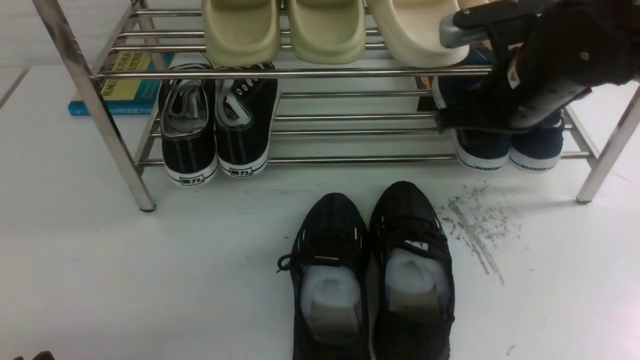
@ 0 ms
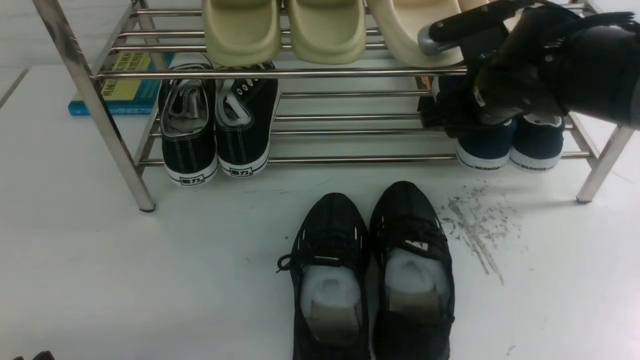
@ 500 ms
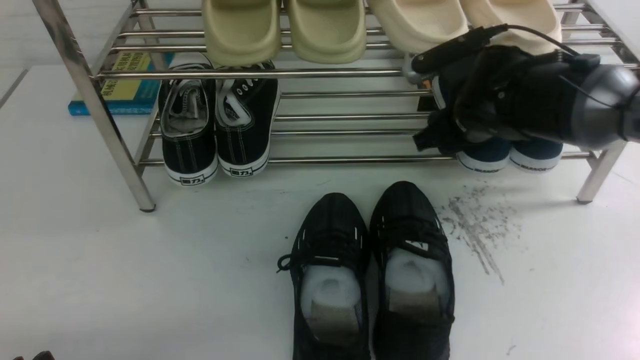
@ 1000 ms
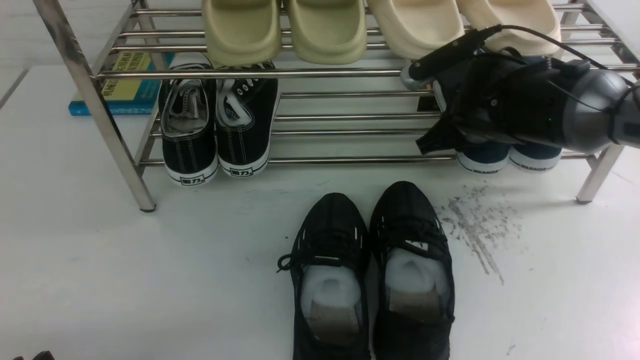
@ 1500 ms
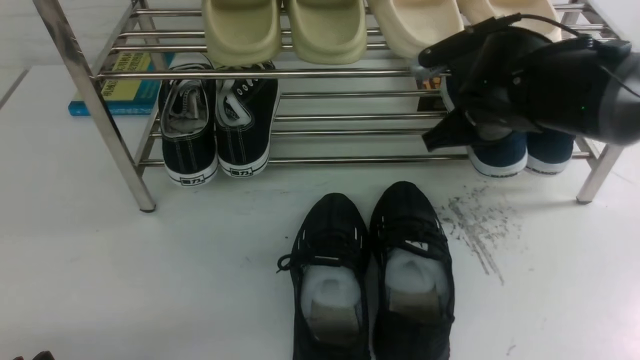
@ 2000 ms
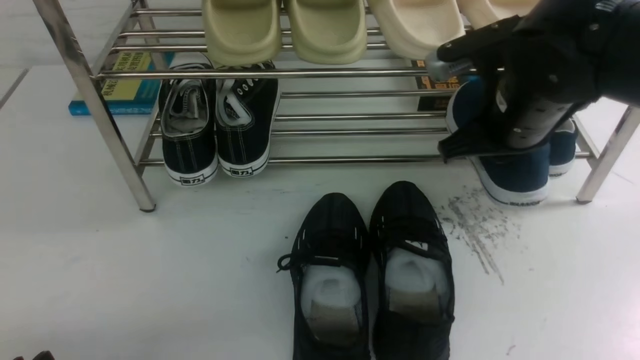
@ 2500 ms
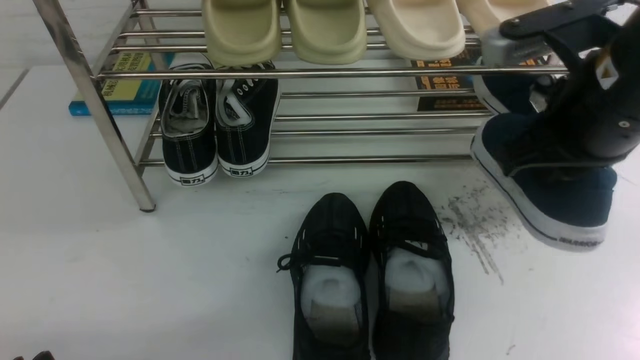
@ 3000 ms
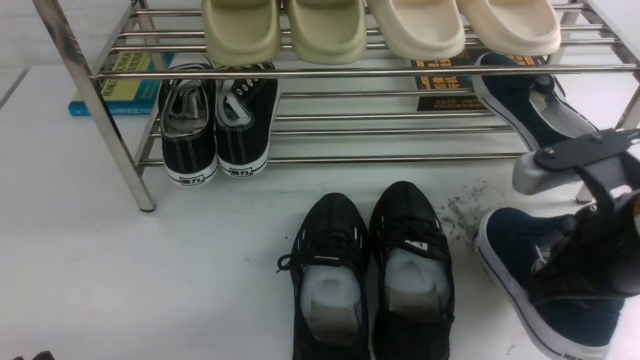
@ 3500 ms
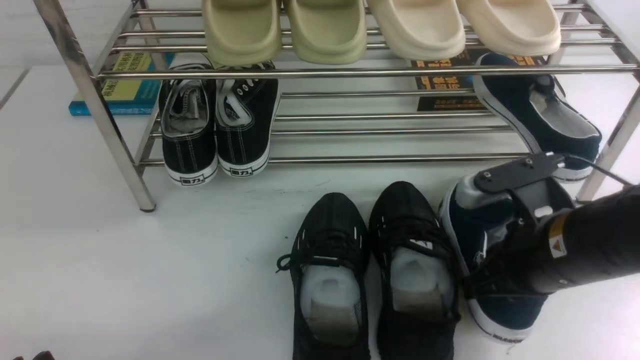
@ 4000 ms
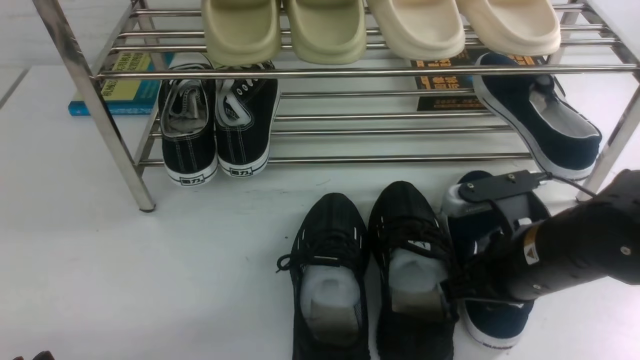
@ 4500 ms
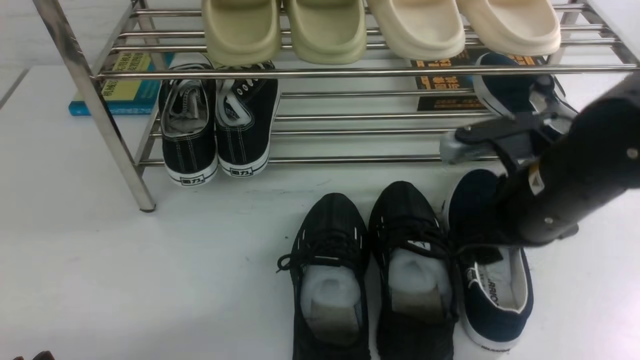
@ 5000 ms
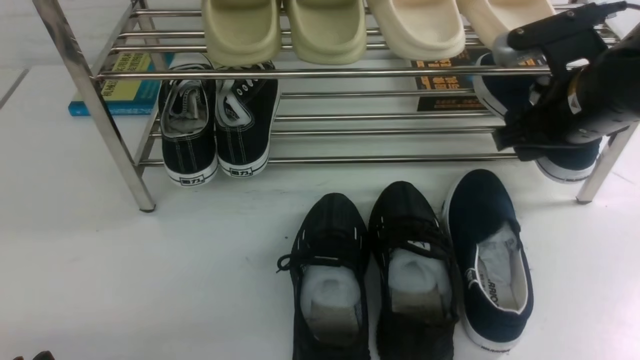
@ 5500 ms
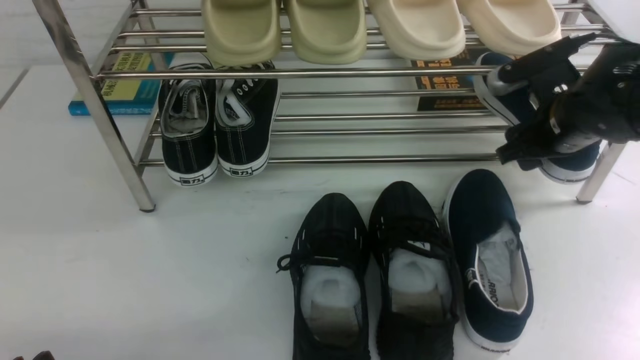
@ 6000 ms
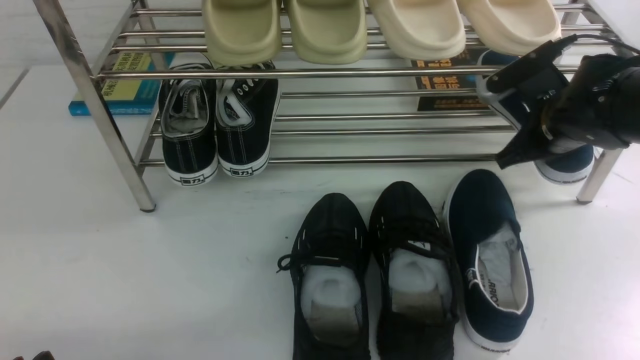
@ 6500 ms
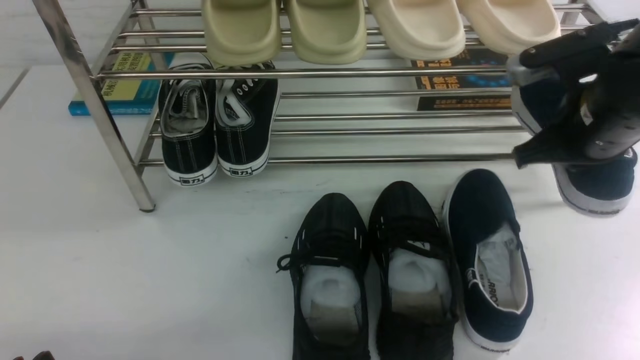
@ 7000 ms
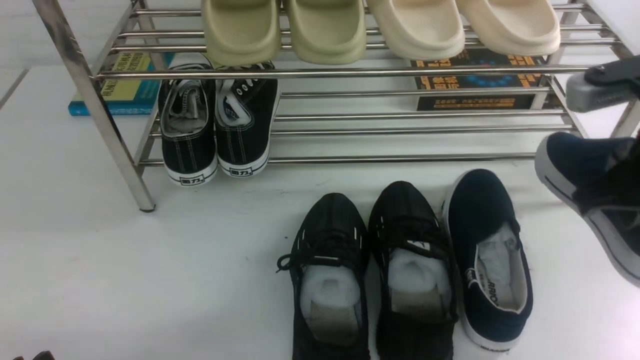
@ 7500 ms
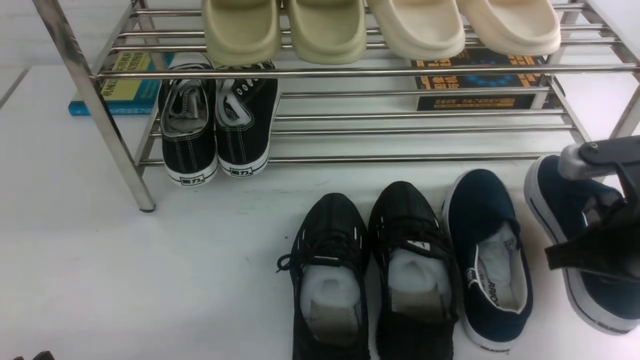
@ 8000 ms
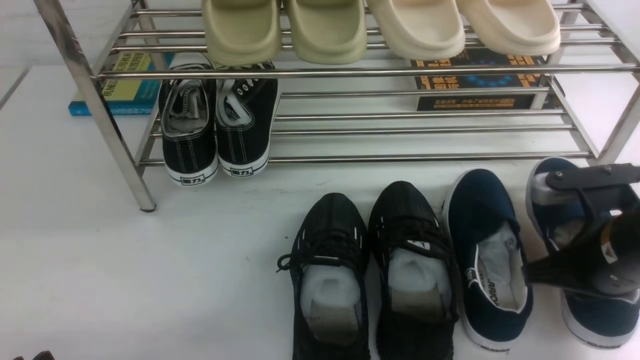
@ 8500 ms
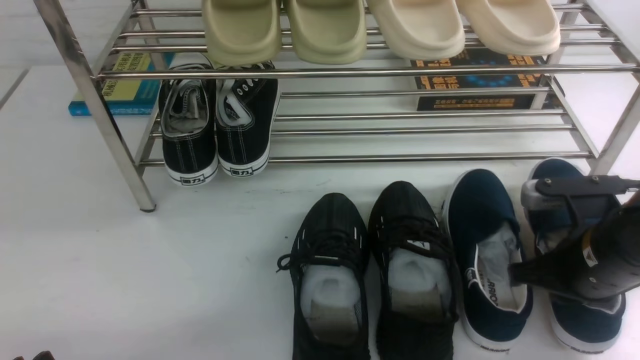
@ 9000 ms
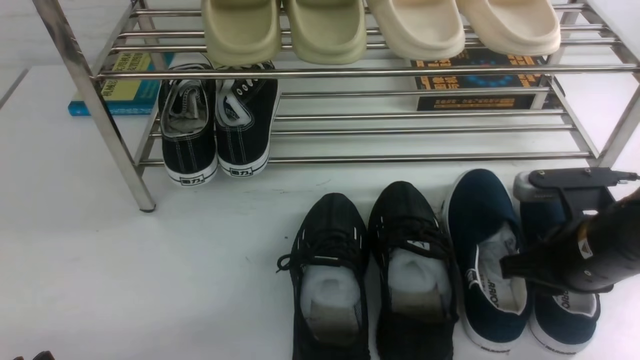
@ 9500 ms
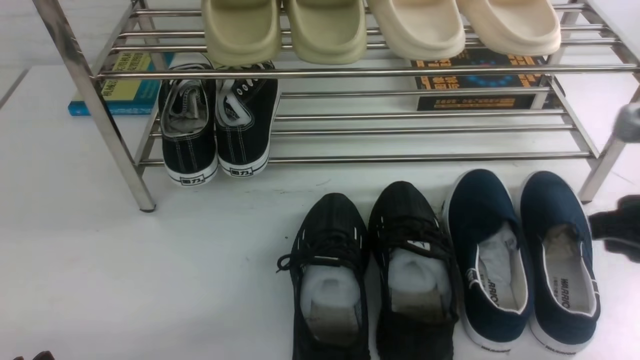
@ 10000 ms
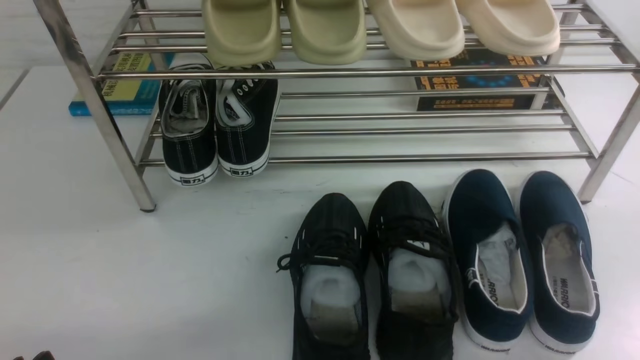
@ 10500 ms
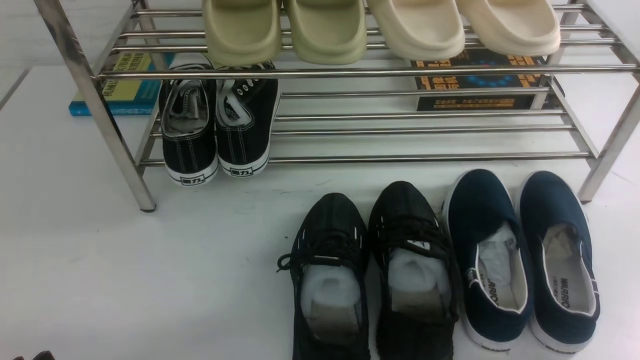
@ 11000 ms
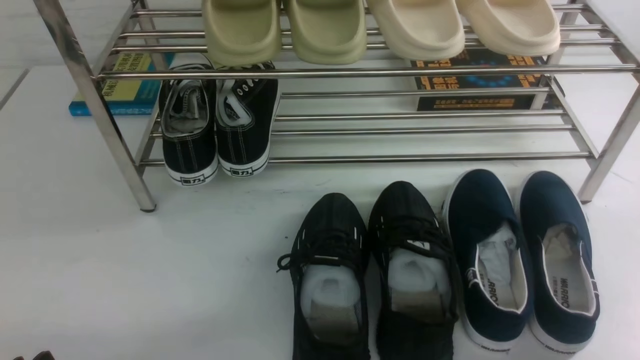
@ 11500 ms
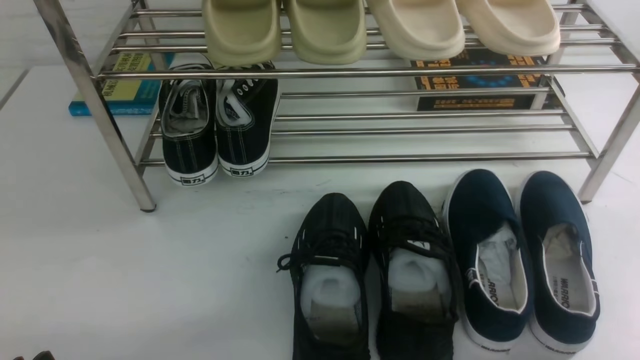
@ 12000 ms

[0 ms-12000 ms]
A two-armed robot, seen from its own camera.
Step, 0 ms to 2500 ms: use the right arm to clamp a shoe on the right side of the shoe rack.
Step, 3000 ms to 5000 ms: use the right arm to take out the clamped shoe from the shoe rack and put it down.
Step, 5500 ms to 7000 ms: use the right arm to clamp a shoe on the right side of the shoe rack.
Step, 7500 ms to 9500 ms: use the right arm to take out the clamped shoe from the shoe rack and put it down.
0 ms to 2000 ms: The right gripper closes up.
2000 ms to 4000 ms: The right gripper heads backward, covering about 15 cm.
4000 ms to 6000 ms: The right gripper shifts roughly 15 cm forward and to the right, and opens.
6000 ms to 8000 ms: The right gripper travels backward by approximately 15 cm, and closes its fingers.
8000 ms to 10000 ms: The right gripper travels upward by about 5 cm, and opens.
10000 ms to 12000 ms: The right gripper travels backward and downward by some 15 cm, and closes.

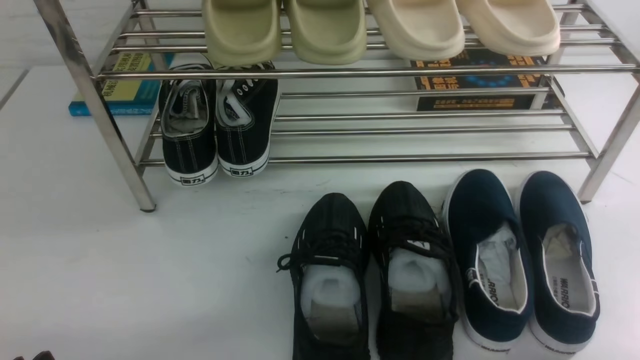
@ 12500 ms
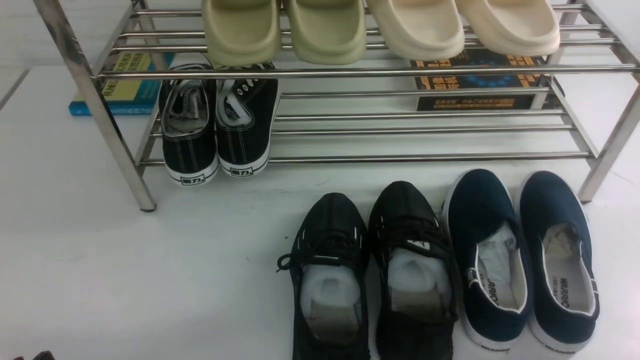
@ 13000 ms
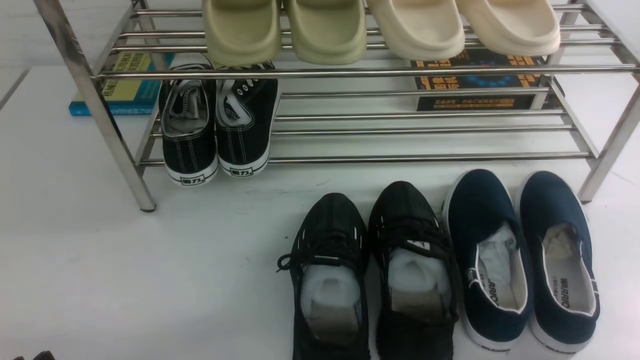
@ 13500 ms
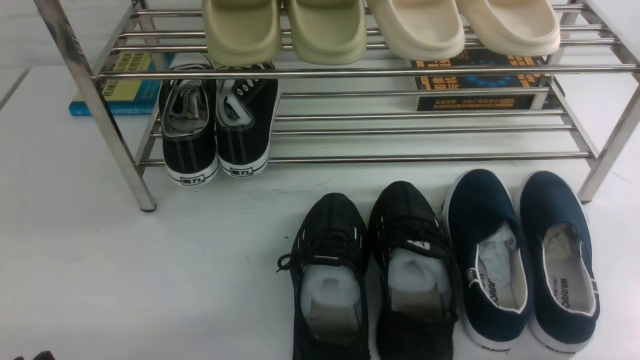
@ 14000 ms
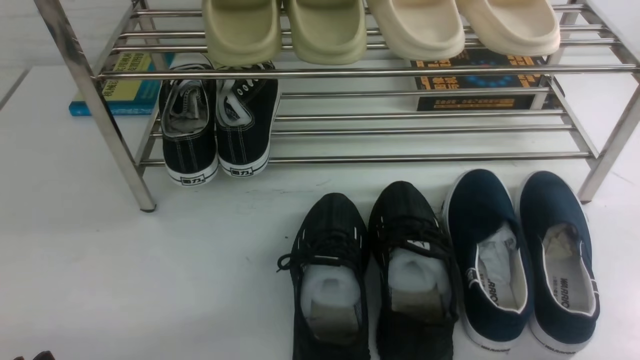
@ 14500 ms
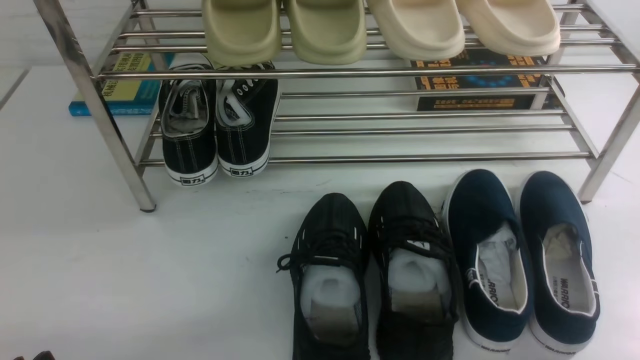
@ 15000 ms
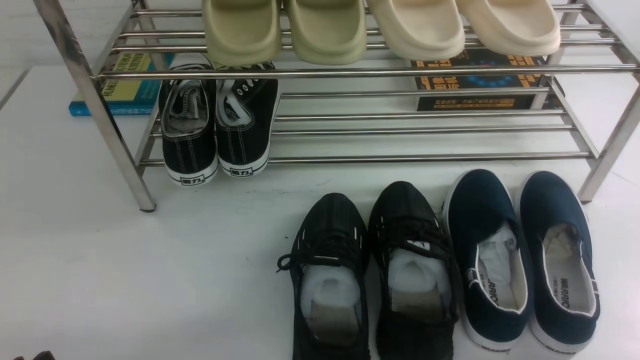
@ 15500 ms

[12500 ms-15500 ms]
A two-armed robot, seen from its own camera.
14000 ms to 15500 ms: Neither gripper changes place.
